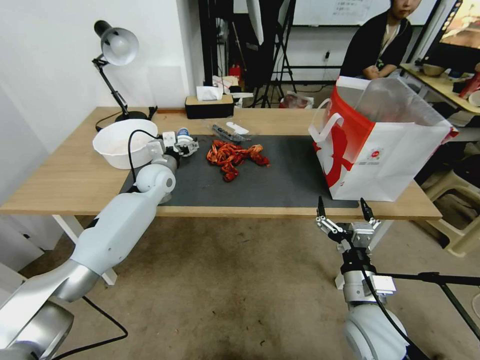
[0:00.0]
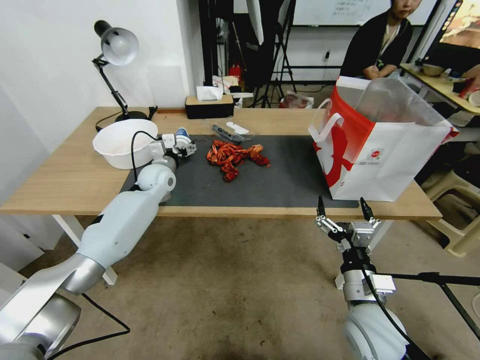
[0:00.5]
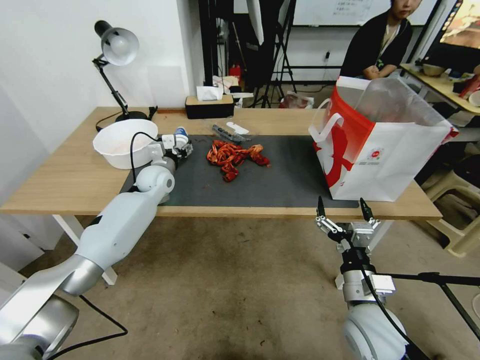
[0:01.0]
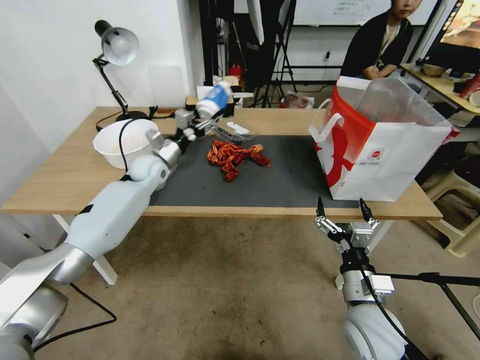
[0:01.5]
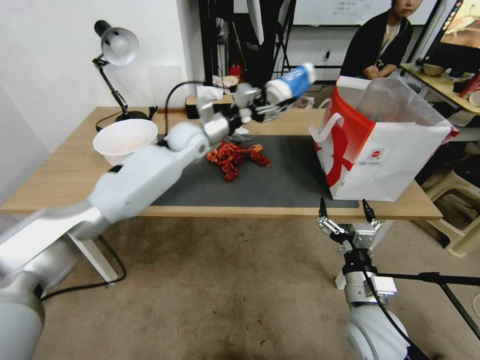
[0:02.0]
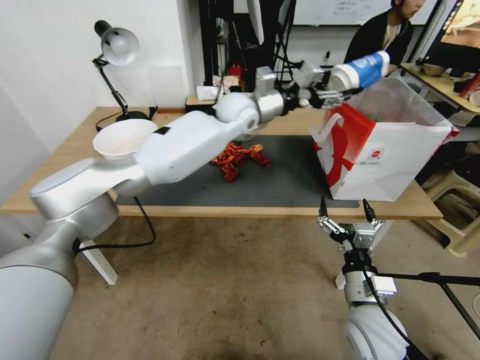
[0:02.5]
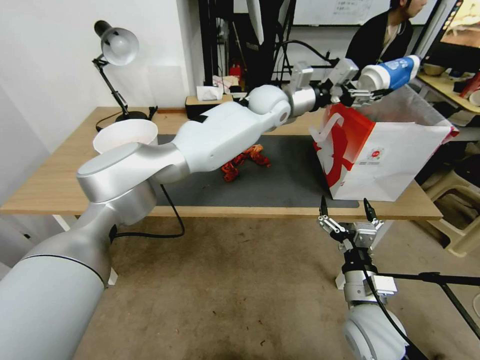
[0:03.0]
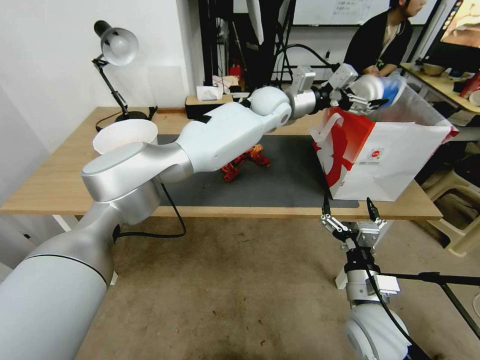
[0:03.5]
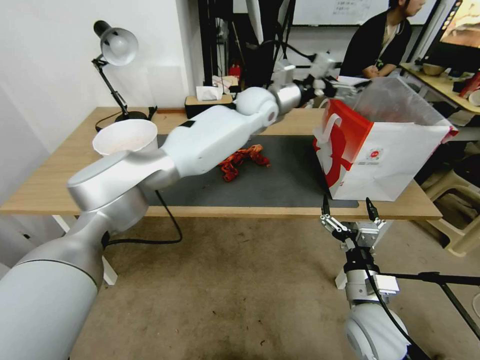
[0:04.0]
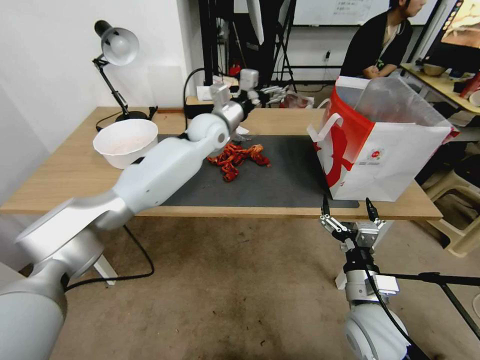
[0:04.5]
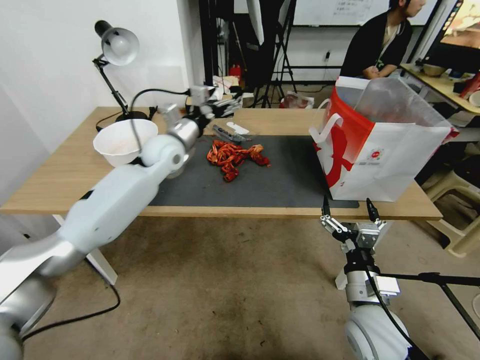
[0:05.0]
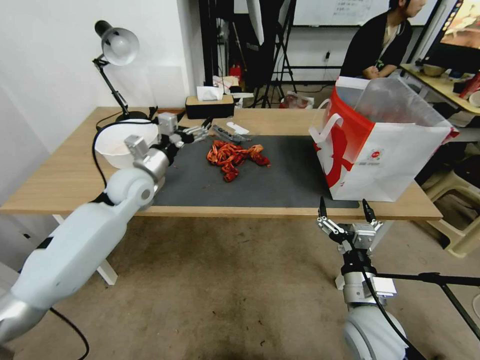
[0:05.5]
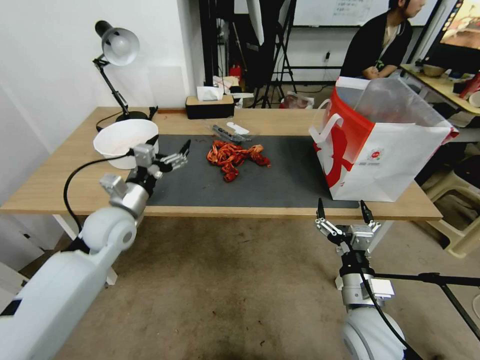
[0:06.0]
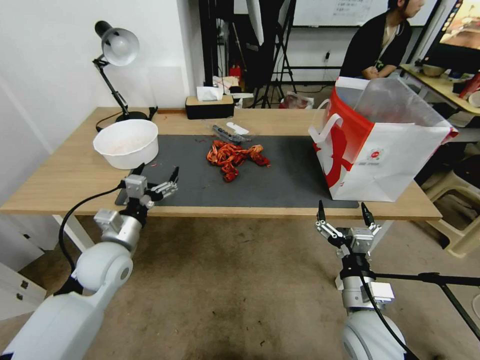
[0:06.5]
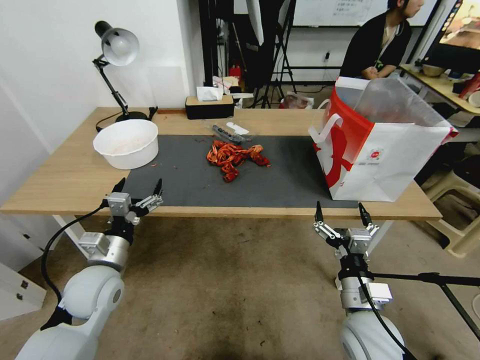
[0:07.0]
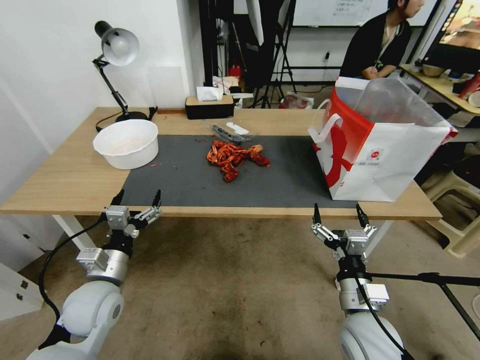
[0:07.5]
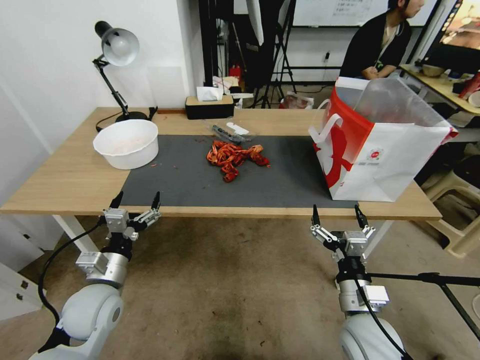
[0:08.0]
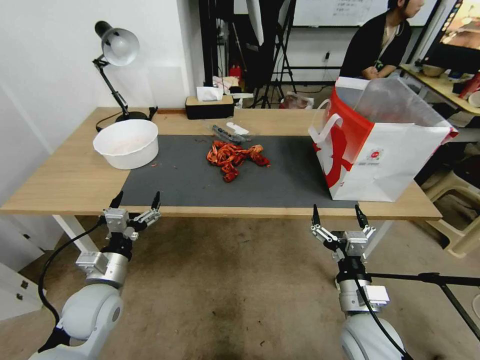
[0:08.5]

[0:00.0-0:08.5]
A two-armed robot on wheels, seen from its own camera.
0:00.0 to 0:02.0: The left gripper travels upward and to the right by about 15 cm, and closes its fingers.
0:02.0 to 0:04.0: The left gripper heads to the right and upward, covering some 15 cm, and opens its fingers.
0:04.0 to 0:06.5: The left gripper moves to the left, backward and downward, approximately 50 cm.
0:06.5 to 0:08.5: The left gripper is displaced backward by about 5 cm.

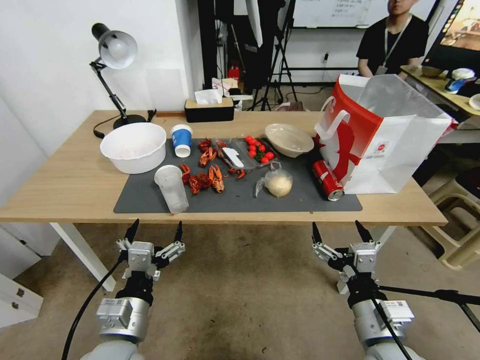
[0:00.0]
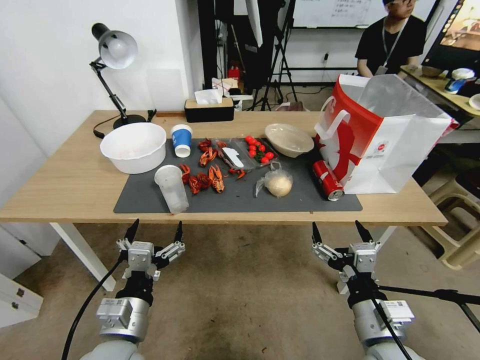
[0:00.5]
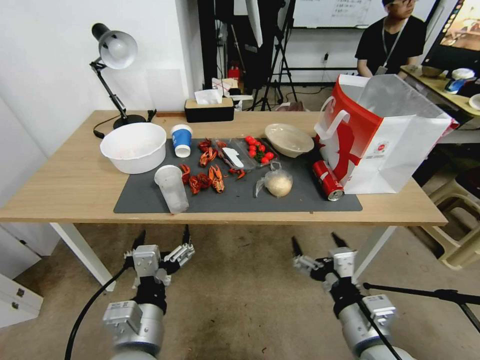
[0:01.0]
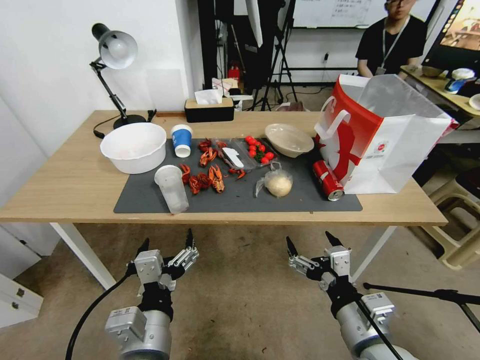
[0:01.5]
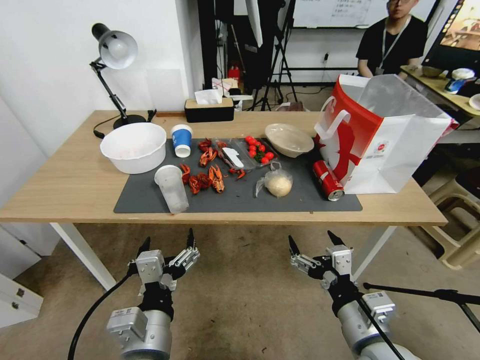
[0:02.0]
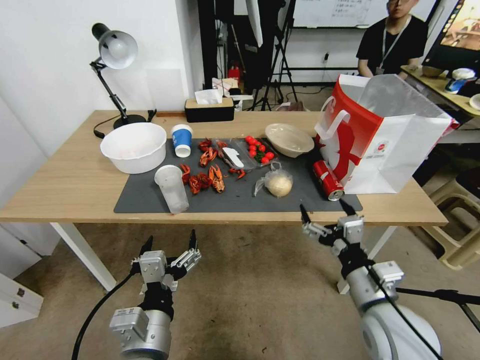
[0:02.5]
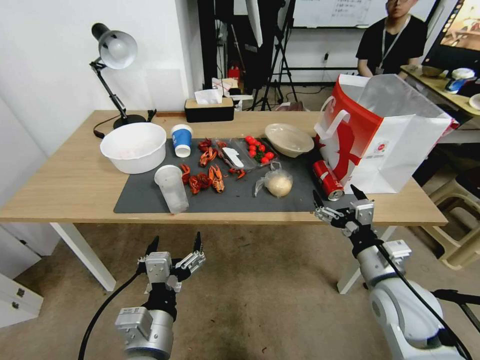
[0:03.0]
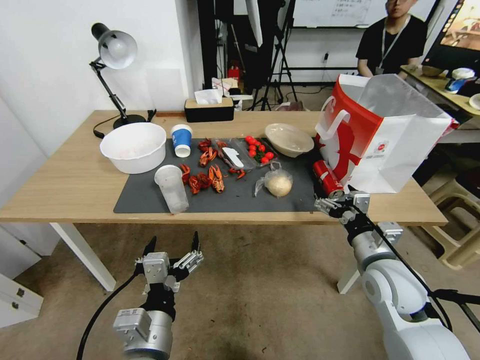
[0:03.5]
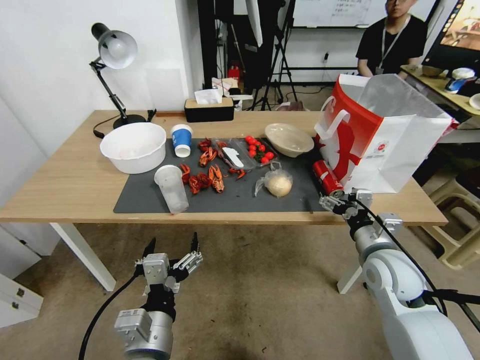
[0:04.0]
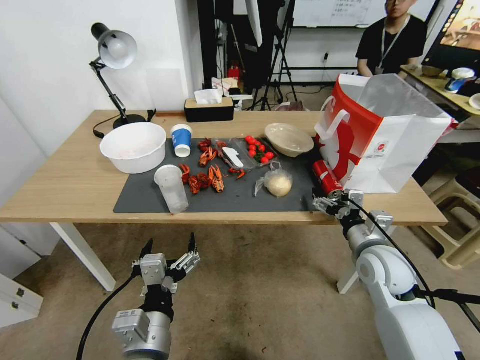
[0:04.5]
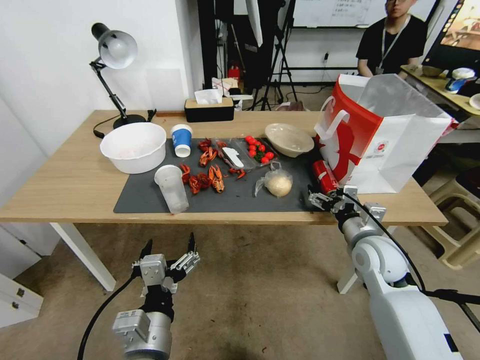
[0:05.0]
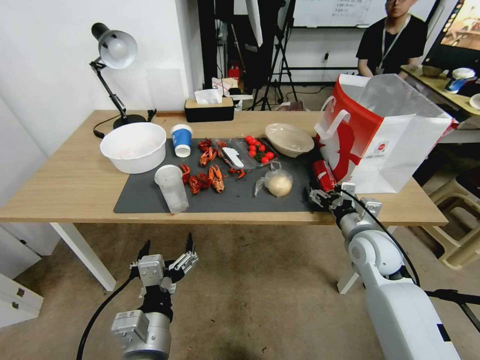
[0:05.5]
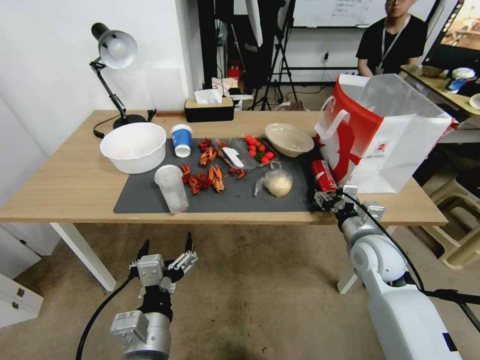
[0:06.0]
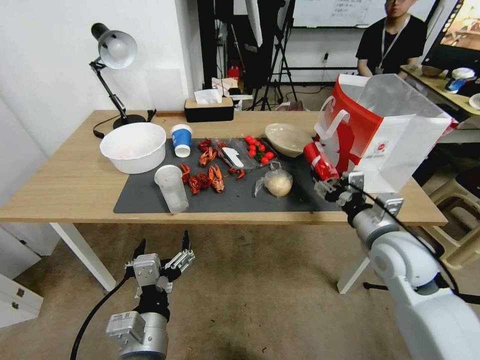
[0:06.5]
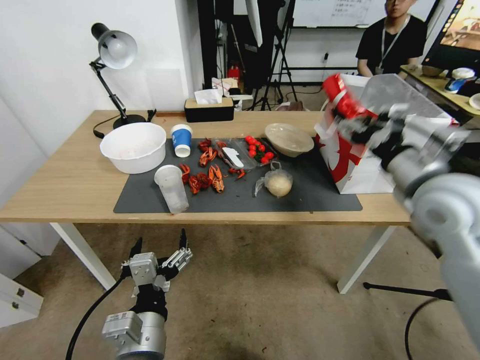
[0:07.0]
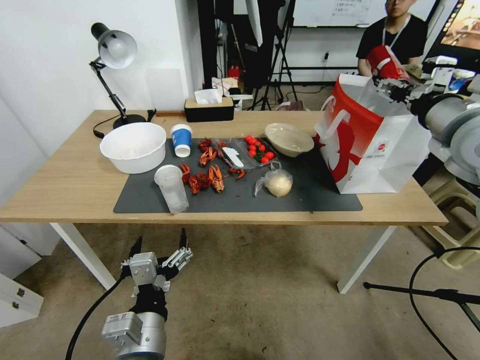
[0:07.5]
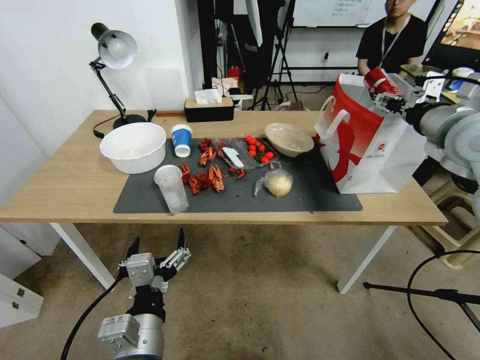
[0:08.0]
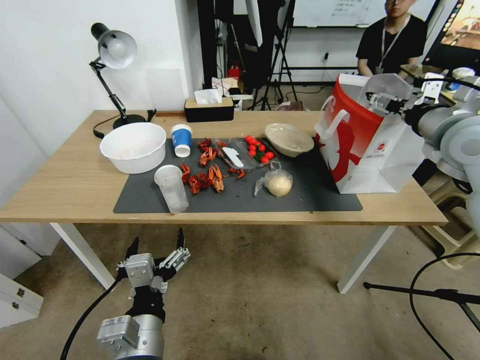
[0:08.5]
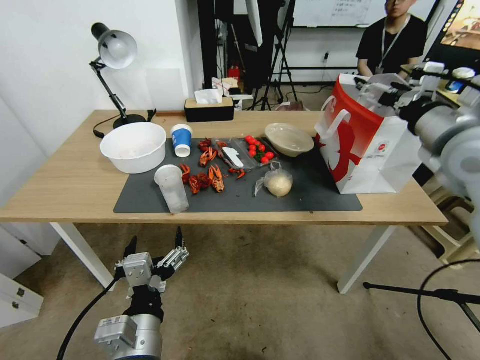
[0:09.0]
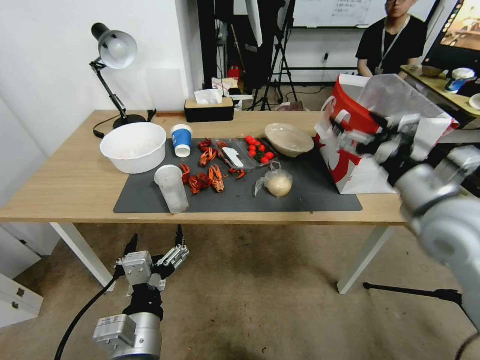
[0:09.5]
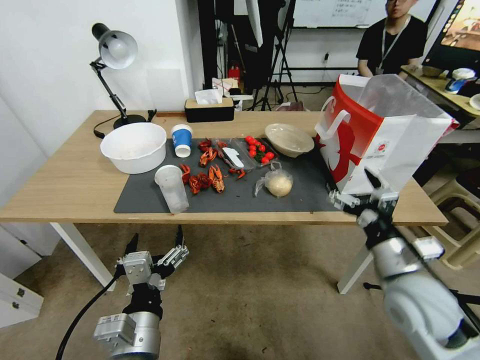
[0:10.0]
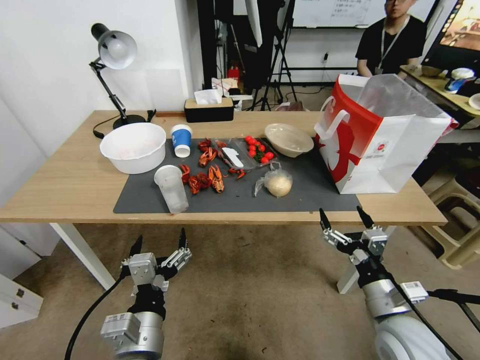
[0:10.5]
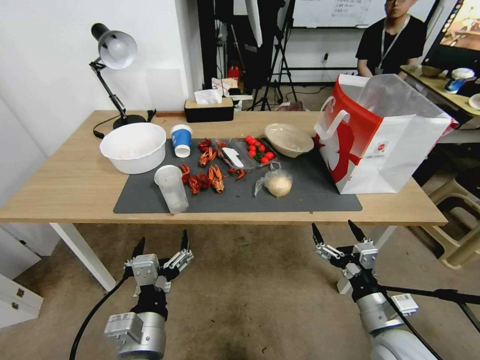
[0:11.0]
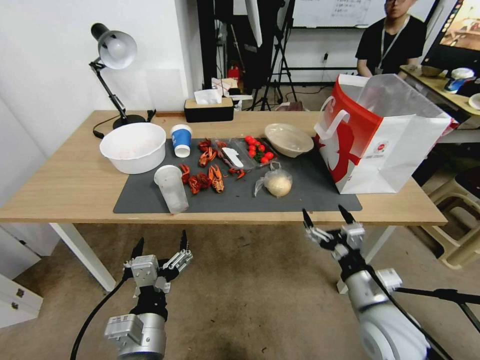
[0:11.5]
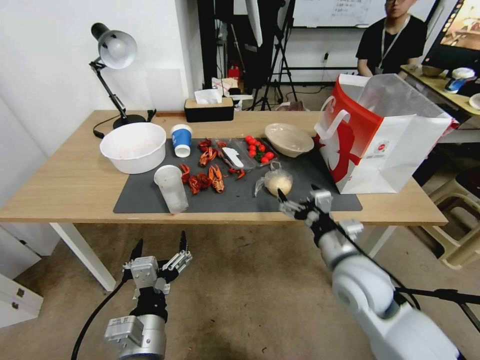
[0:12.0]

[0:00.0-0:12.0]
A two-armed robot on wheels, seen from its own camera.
0:02.0 to 0:04.0: The right gripper moves forward and to the right, roughly 15 cm.
0:04.0 to 0:06.0: The right gripper closes its fingers.
0:06.0 to 0:08.0: The right gripper is displaced upward by about 25 cm.
0:08.0 to 0:10.0: The right gripper heads backward, downward and to the left, covering some 20 cm, and opens its fingers.
0:10.0 to 0:12.0: The right gripper travels downward and to the left by about 15 cm.

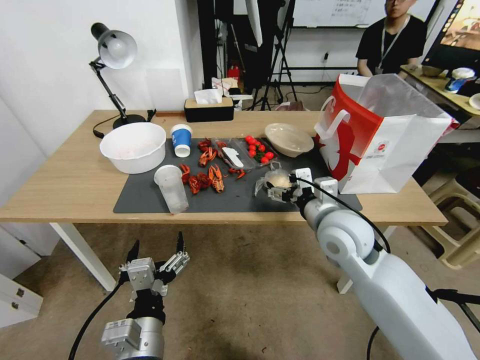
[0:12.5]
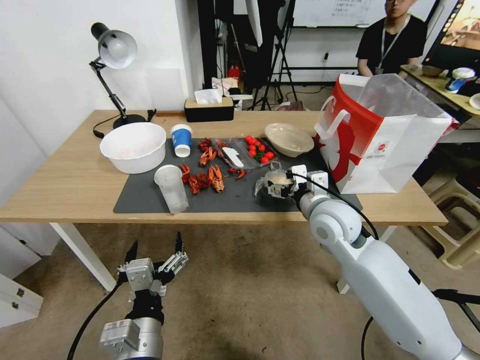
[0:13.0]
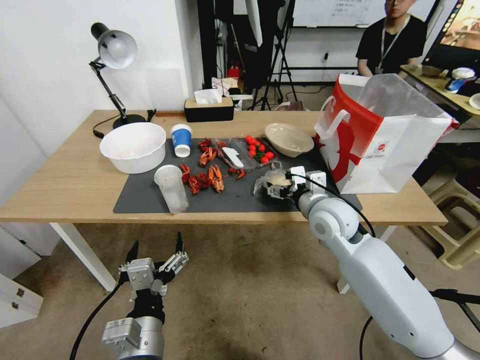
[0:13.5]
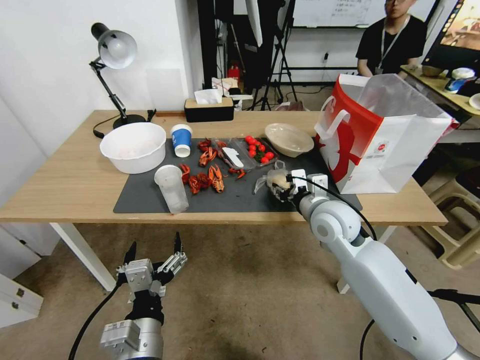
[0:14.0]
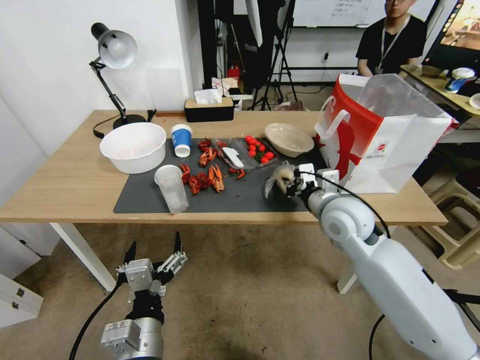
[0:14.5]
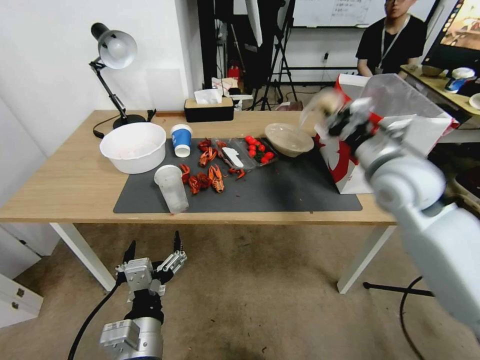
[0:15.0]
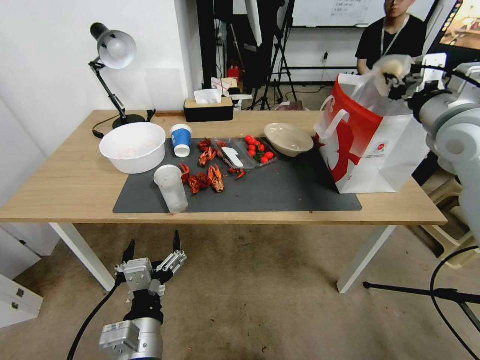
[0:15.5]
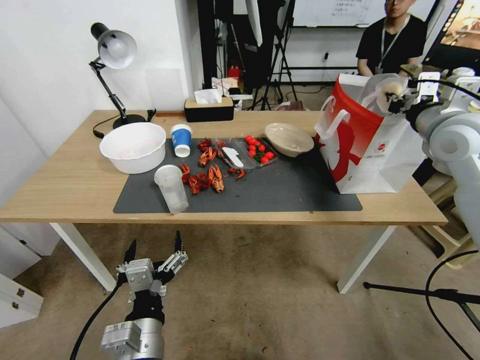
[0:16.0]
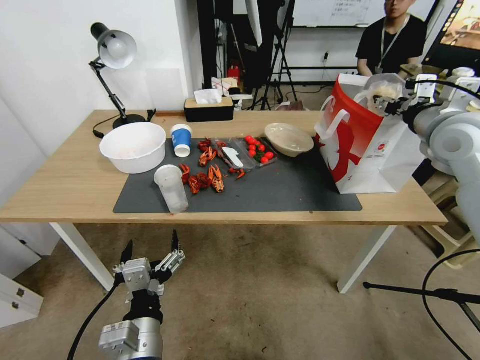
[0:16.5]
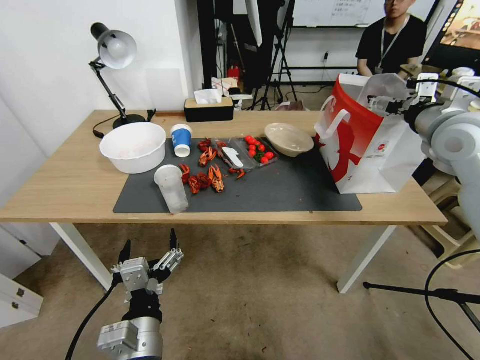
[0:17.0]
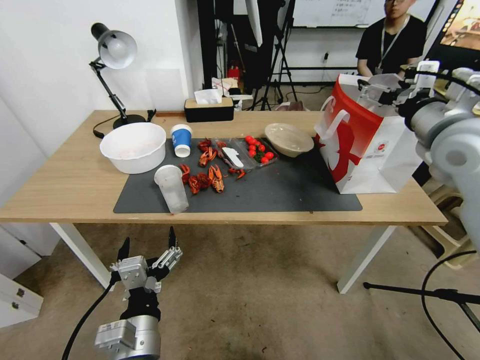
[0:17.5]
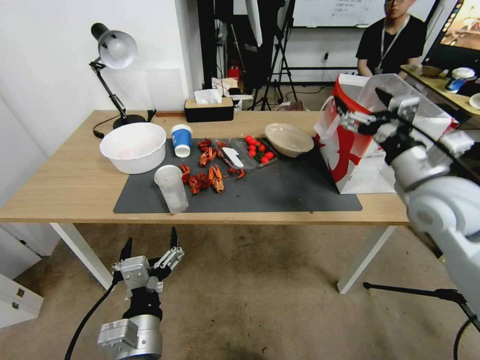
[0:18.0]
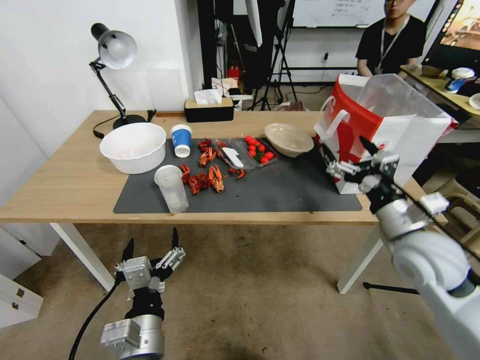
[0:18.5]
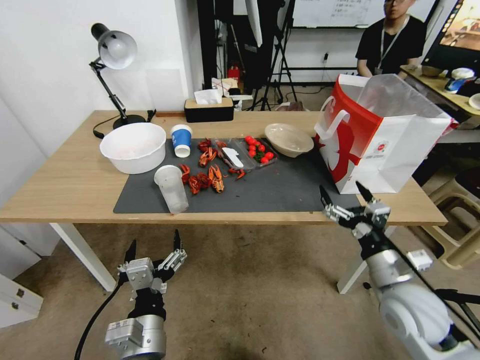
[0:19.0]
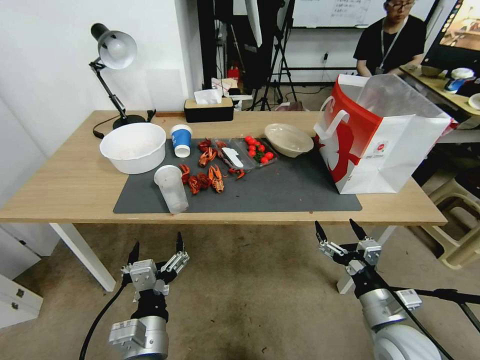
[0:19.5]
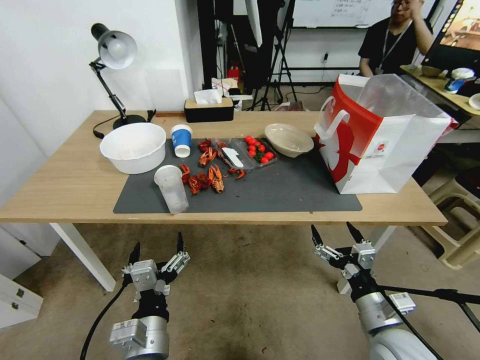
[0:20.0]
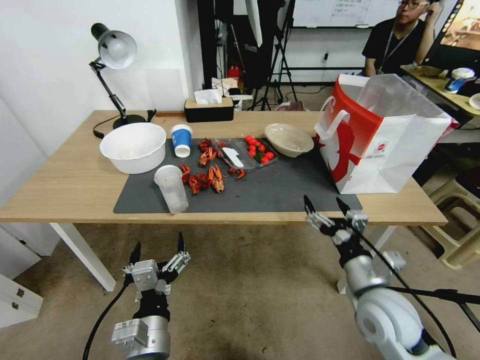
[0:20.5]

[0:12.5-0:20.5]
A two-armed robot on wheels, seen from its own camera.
0:12.5 to 0:14.5: The right gripper moves forward, some 5 cm, and closes up.
0:14.5 to 0:16.5: The right gripper shifts roughly 25 cm upward and to the right, and opens its fingers.
0:16.5 to 0:18.5: The right gripper moves downward and backward, approximately 20 cm, and opens its fingers.
0:18.5 to 0:20.5: The right gripper heads downward, backward and to the left, covering some 10 cm.
